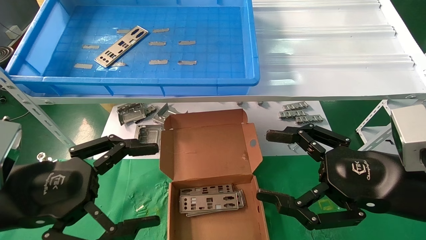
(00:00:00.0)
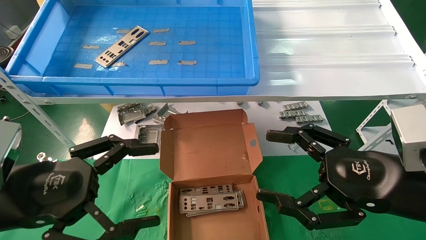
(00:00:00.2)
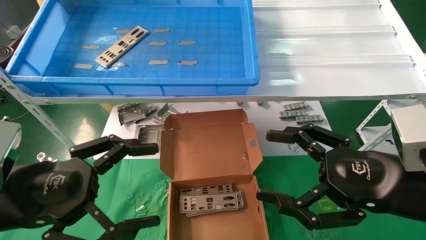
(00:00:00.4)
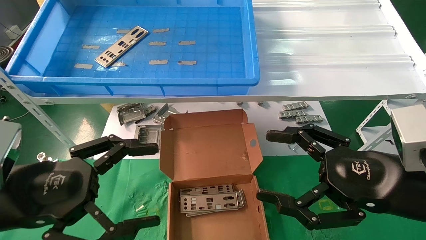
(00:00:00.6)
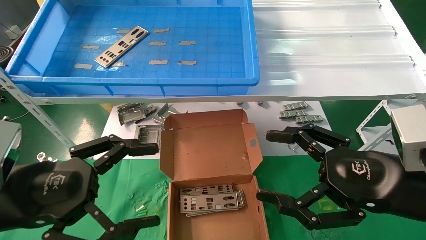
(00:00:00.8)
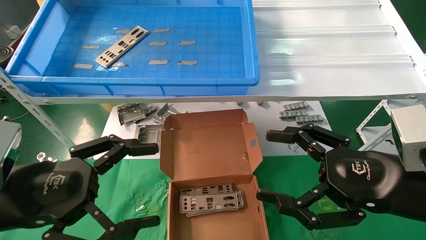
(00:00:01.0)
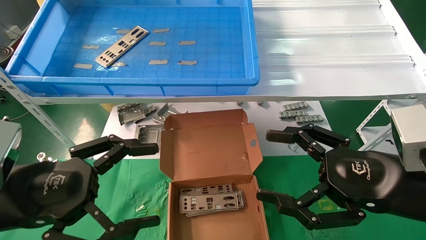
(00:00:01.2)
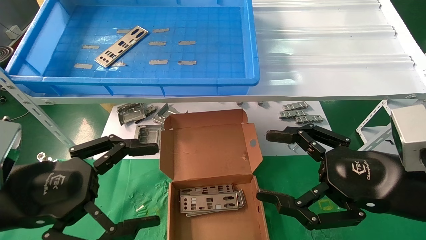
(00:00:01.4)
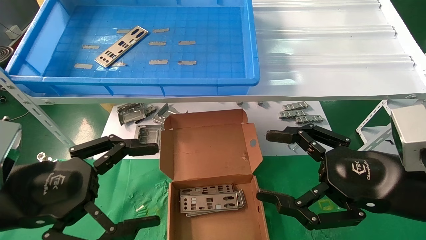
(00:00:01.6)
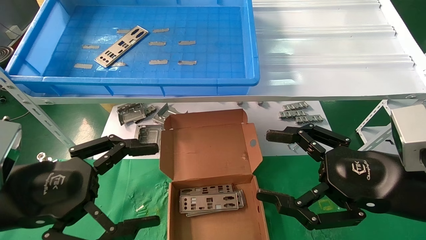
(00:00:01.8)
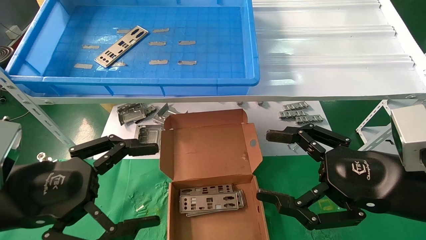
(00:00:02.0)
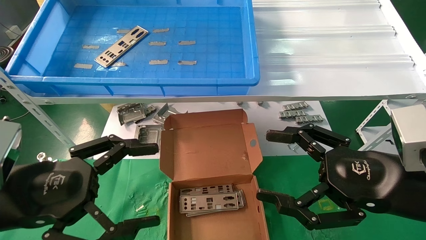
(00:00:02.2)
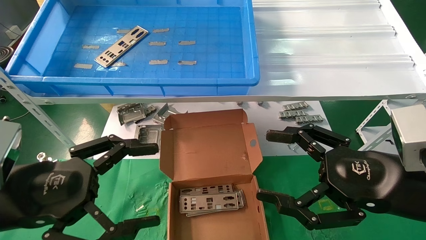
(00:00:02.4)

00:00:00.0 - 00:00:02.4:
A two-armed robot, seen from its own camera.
Task of the whole recording: pick up the parts on the tray and put them in the cardboard box.
00:00:00.0 - 00:00:02.4: Both grippers stay about where they are.
